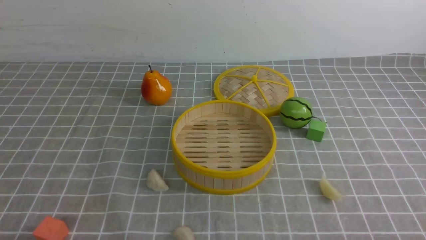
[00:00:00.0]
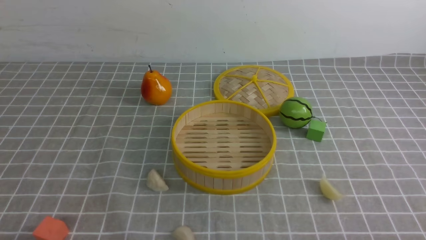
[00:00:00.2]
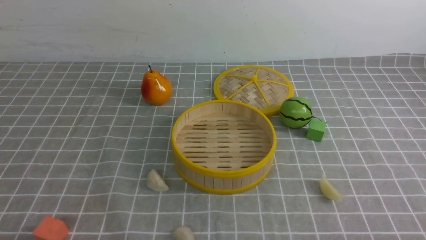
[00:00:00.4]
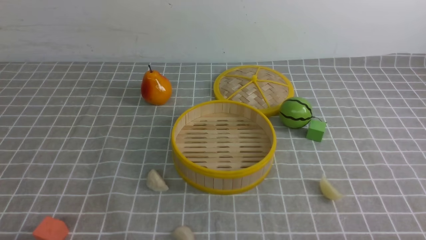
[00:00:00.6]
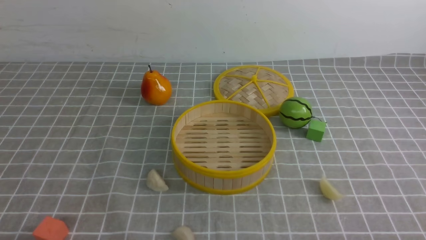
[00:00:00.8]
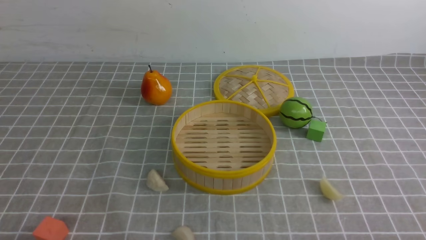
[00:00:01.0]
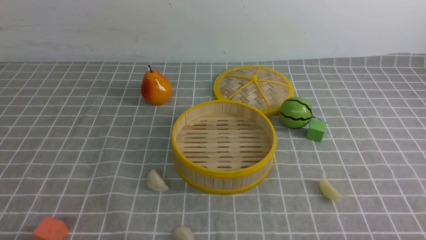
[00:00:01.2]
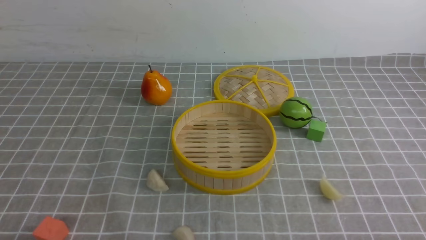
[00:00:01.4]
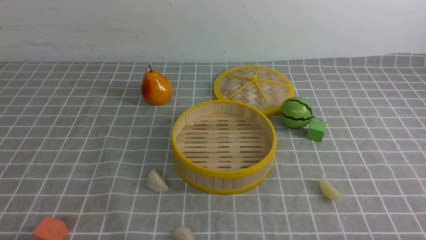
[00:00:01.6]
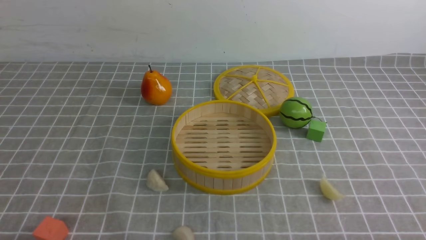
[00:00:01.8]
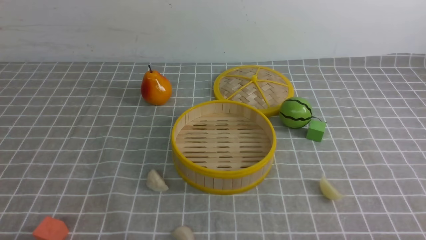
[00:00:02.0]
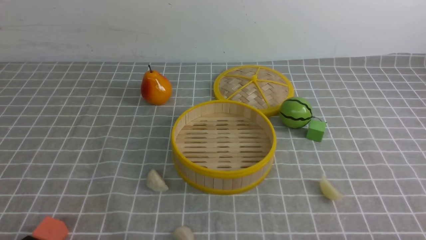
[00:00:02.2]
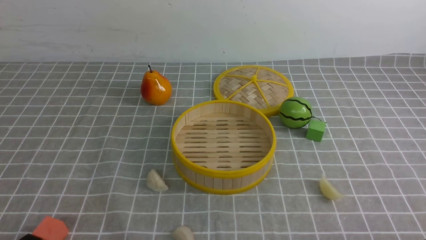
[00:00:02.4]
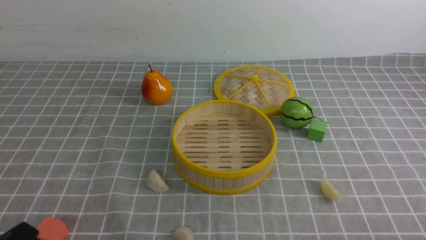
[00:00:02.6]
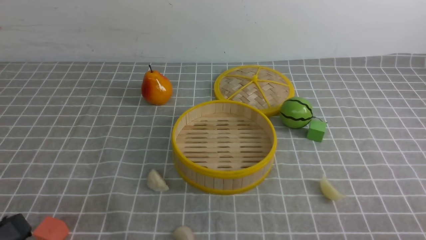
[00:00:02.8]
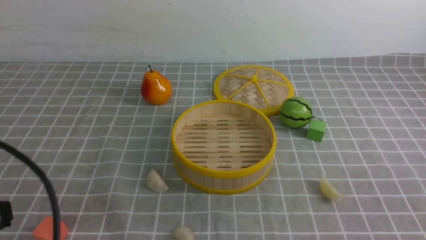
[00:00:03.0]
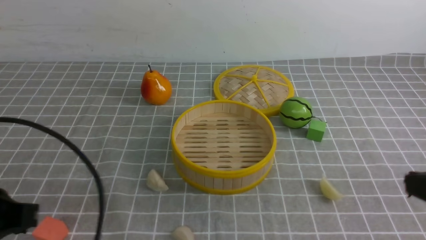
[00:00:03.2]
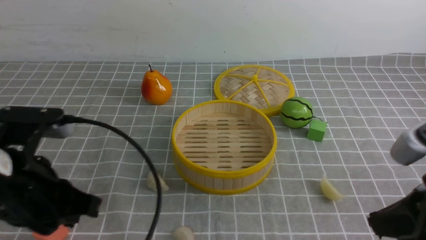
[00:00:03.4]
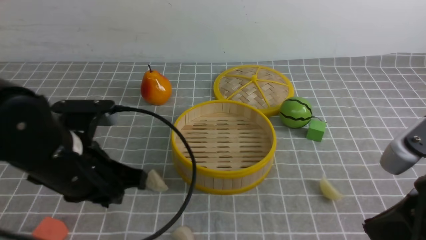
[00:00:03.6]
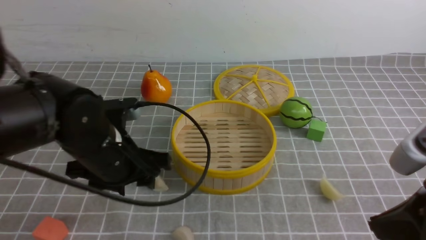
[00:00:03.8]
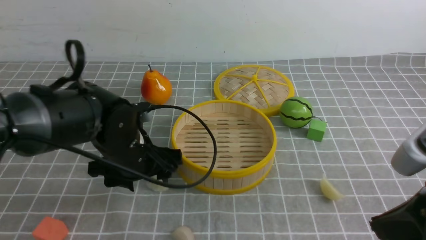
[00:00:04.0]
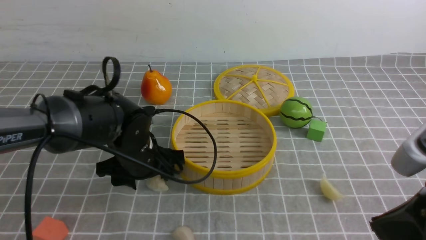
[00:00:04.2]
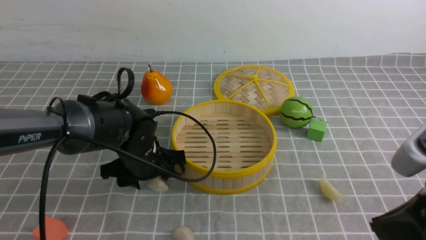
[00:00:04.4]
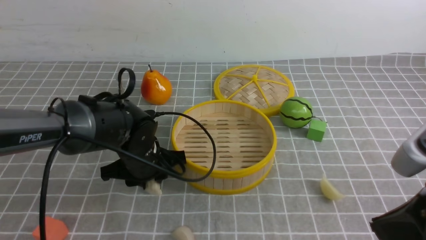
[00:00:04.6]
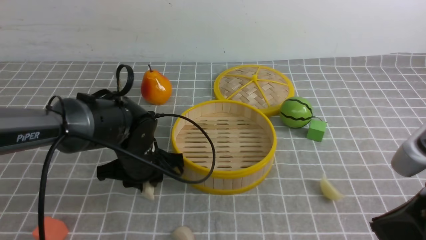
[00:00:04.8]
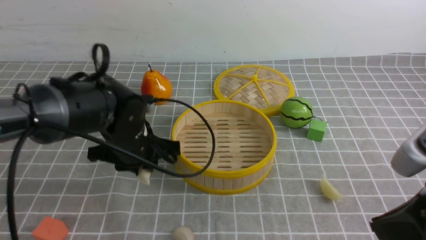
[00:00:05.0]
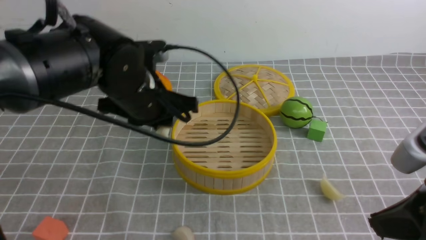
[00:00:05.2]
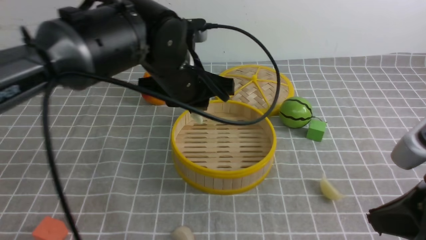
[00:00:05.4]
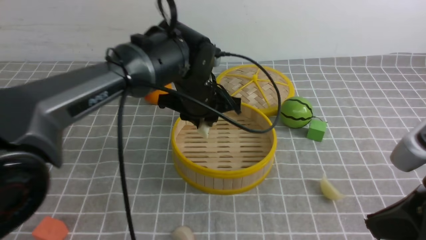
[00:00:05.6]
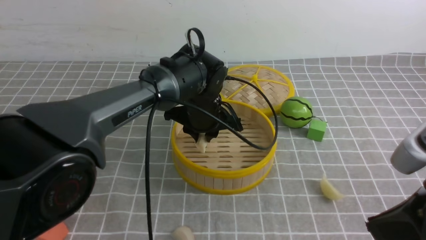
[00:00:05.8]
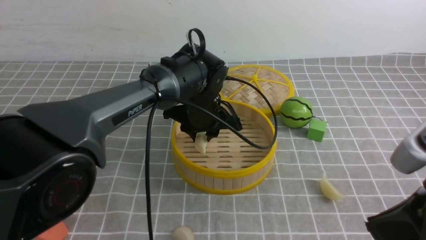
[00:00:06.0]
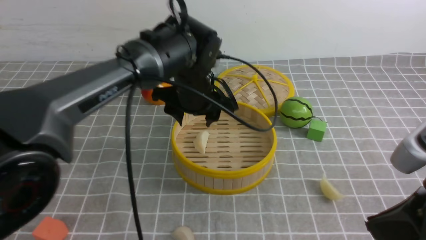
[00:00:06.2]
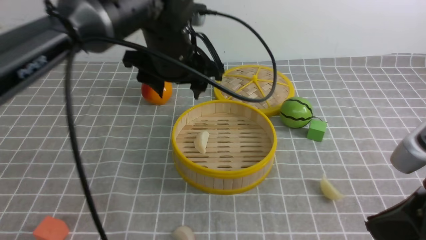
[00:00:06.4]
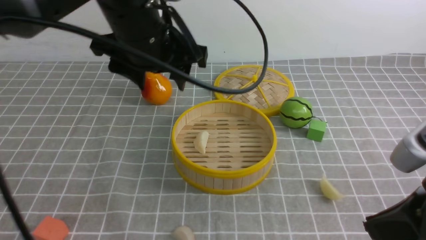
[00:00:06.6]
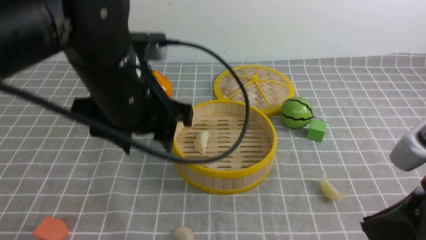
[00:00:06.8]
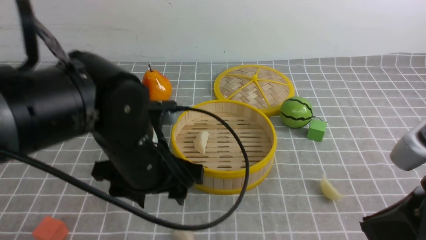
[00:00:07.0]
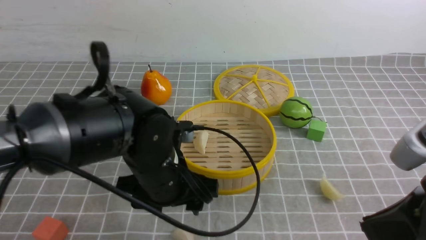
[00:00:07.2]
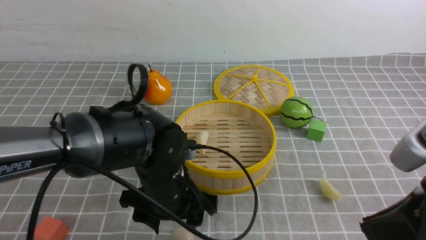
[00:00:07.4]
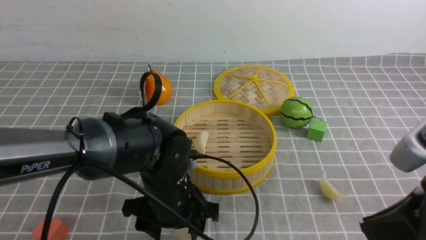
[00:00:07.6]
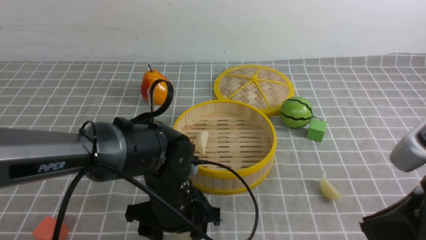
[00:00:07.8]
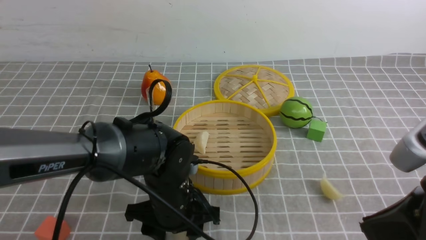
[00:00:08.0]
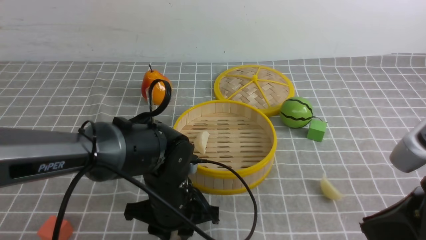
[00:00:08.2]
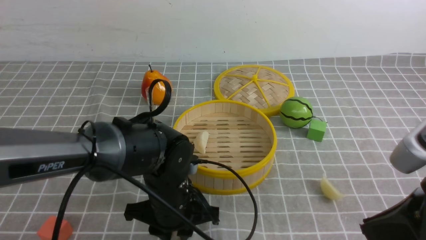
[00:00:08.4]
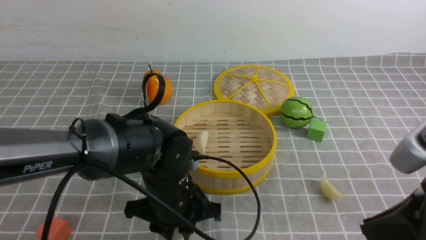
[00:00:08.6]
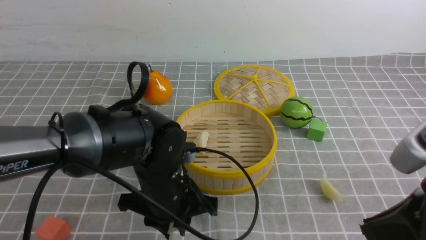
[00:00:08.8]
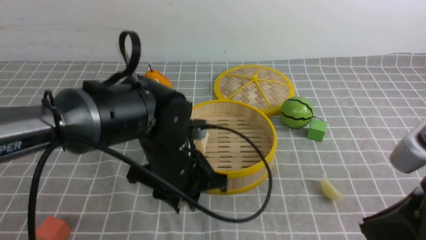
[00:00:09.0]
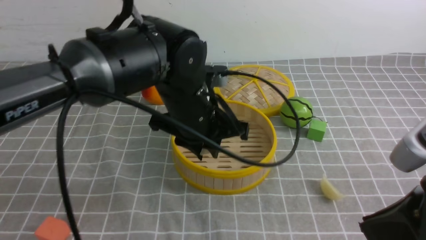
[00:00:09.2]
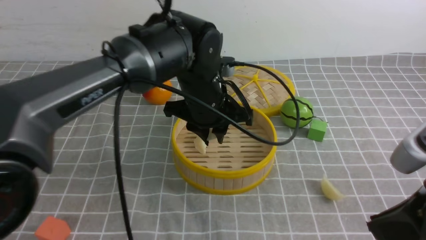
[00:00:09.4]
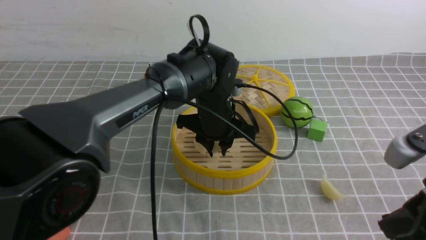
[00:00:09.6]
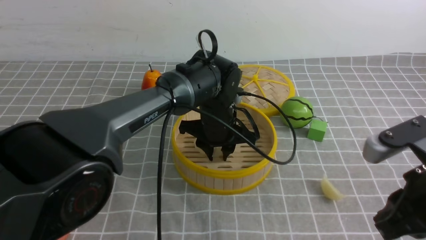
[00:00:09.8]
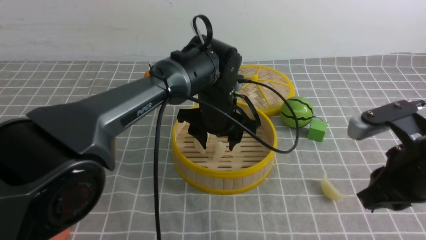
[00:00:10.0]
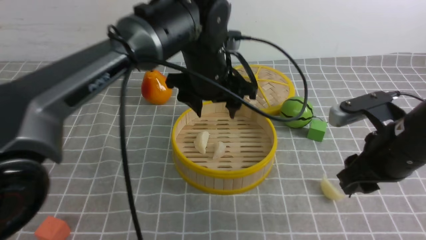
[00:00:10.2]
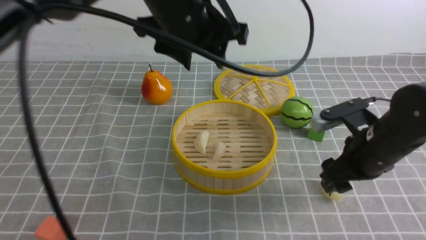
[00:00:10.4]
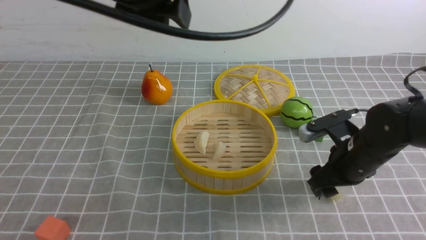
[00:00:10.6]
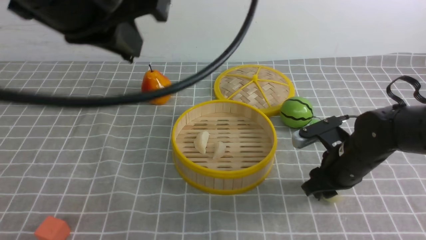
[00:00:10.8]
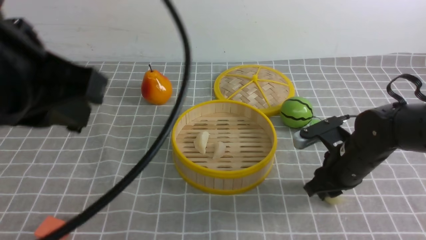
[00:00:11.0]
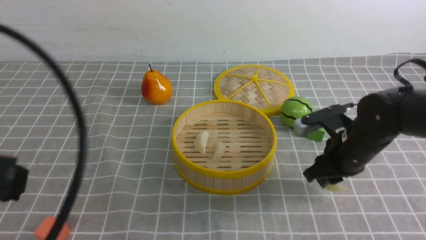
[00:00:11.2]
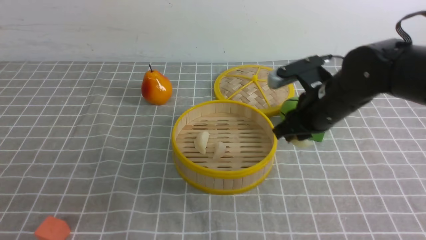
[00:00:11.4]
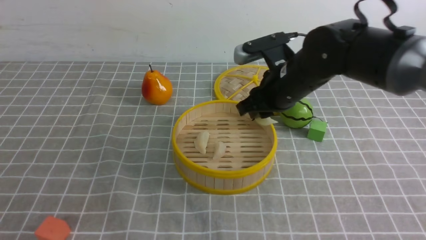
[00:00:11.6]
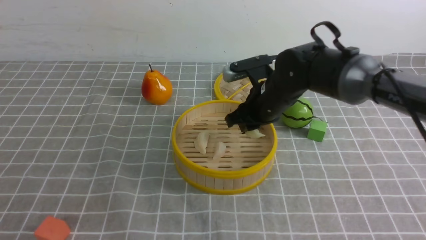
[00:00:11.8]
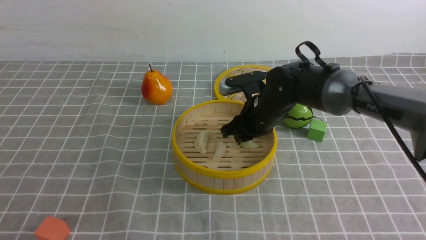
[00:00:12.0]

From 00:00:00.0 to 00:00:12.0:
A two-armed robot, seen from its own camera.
Task of the whole recording: put the dumplings into the steamer on the table with the grey tablecloth.
Step, from 00:00:00.0 to 00:00:04.8: use the left arm to grab a dumpling.
Step, from 00:00:05.0 to 00:00:06.2: use the left arm to put the dumpling into the steamer.
Step, from 00:00:06.4 to 00:00:08.6: use the left arm to grab a dumpling.
Step, from 00:00:08.8 to 00:00:10.0: use the left arm to put the dumpling into the steamer.
Step, from 00:00:10.2 to 00:00:11.0: use the right arm to grab a dumpling.
From 00:00:00.0 to 00:00:01.6: Neither gripper changes place.
From 00:00:01.6 to 00:00:03.0: The left gripper moves upward, about 15 cm, and closes its fingers.
From 00:00:03.0 to 00:00:04.4: The left gripper travels forward, downward and to the right by some 30 cm, and opens, while the right gripper goes roughly 5 cm to the left.
From 00:00:04.4 to 00:00:06.0: The left gripper heads to the right, forward and upward, covering some 15 cm.
From 00:00:06.0 to 00:00:07.6: The left gripper travels backward by about 15 cm, reaches about 15 cm upward, then returns, and opens its fingers.
From 00:00:07.6 to 00:00:09.0: The left gripper moves upward, approximately 5 cm, and closes its fingers.
From 00:00:09.0 to 00:00:10.4: The left gripper is displaced upward by about 20 cm; the right gripper is displaced forward and downward by roughly 20 cm, and opens up.
From 00:00:10.4 to 00:00:12.0: The left gripper heads backward and to the left, covering about 40 cm, and closes up, while the right gripper shifts some 20 cm to the left and forward.

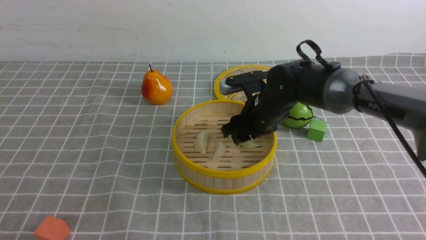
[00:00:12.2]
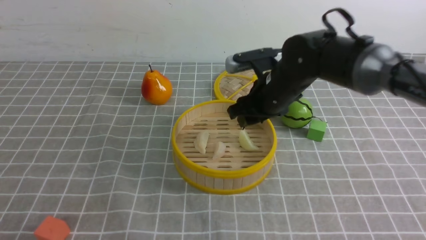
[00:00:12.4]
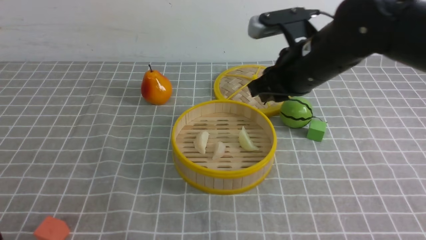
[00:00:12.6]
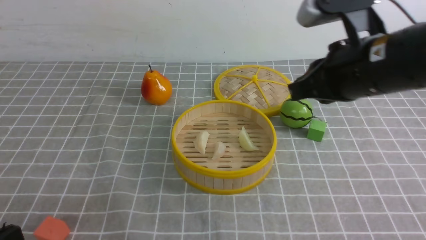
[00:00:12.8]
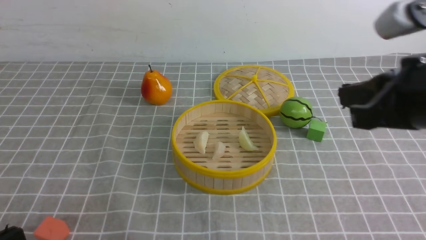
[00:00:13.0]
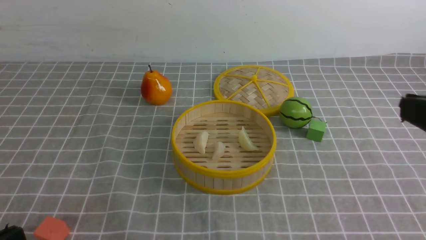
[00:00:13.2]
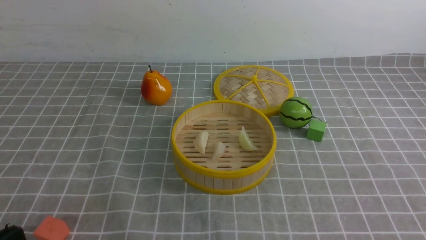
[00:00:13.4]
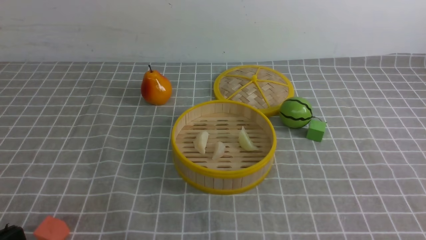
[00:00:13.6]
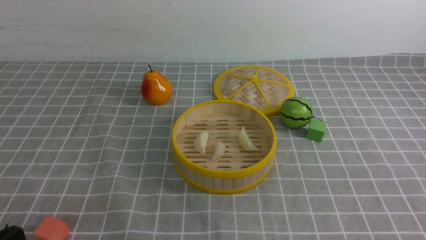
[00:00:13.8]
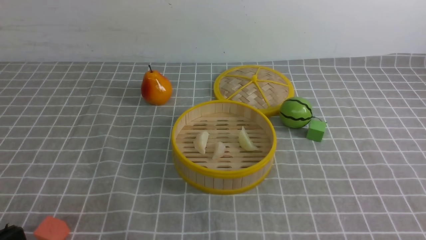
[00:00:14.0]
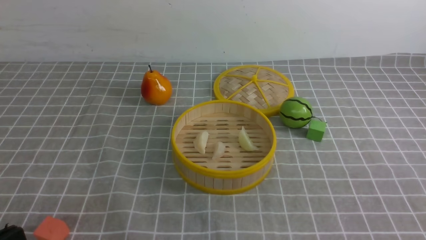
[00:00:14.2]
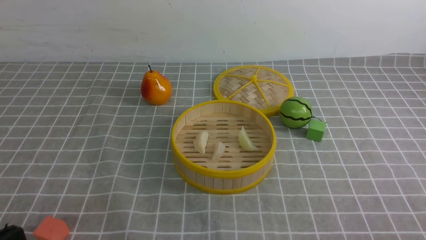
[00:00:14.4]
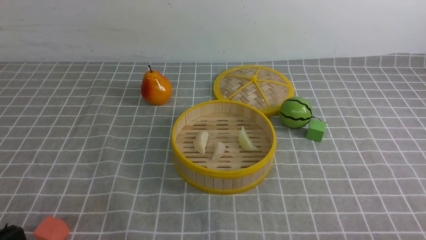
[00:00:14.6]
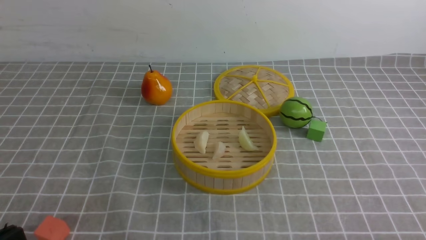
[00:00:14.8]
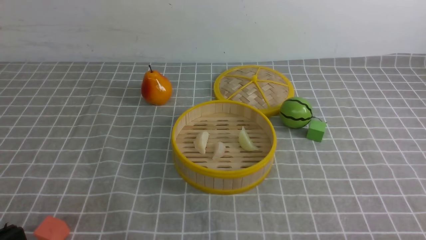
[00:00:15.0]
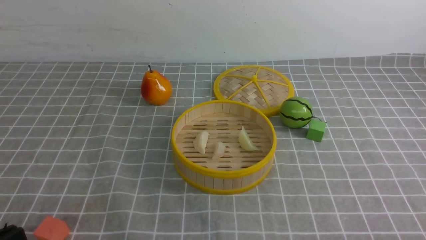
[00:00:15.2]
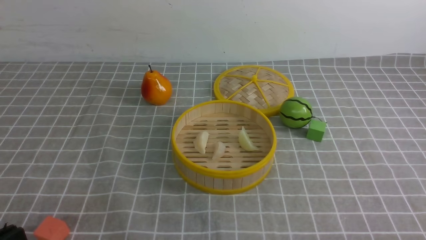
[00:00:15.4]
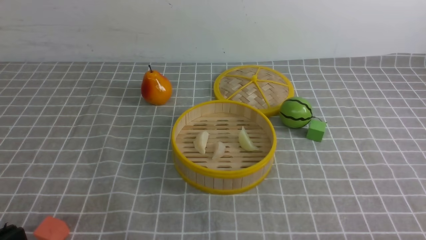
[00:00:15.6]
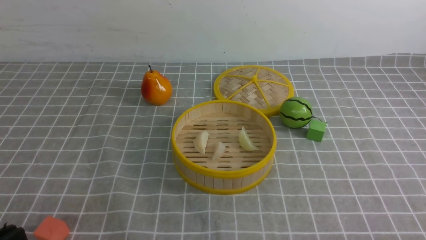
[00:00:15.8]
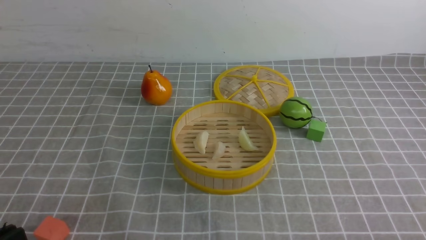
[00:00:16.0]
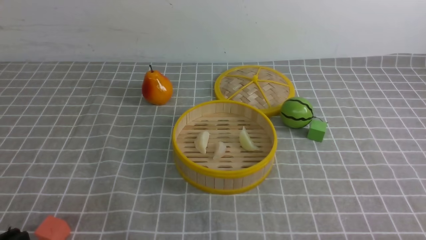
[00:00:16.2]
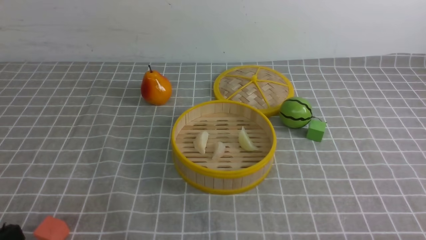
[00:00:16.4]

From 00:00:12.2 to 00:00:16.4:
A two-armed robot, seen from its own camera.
Task of the whole recording: put the dumplings into the steamer on the table with the grey tablecloth.
From 00:00:12.2 to 00:00:13.6: The left gripper goes approximately 10 cm downward, while the right gripper shifts approximately 40 cm backward, upward and to the right, and closes.
